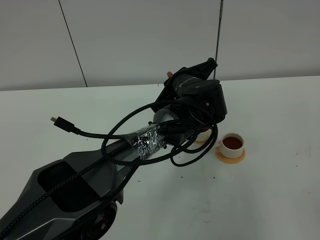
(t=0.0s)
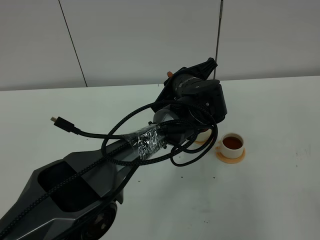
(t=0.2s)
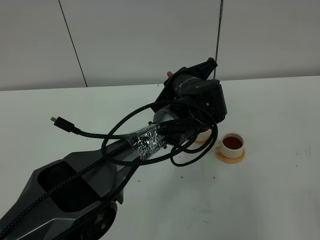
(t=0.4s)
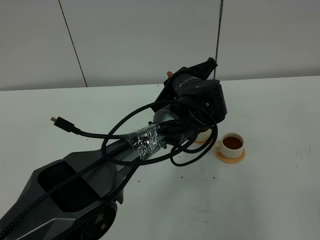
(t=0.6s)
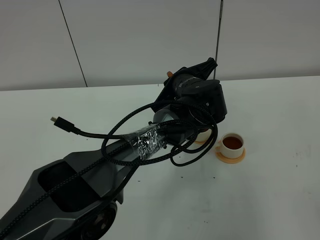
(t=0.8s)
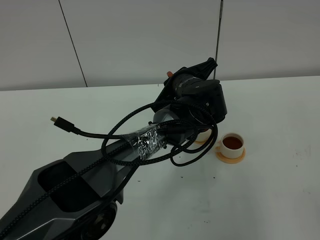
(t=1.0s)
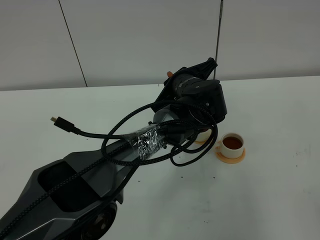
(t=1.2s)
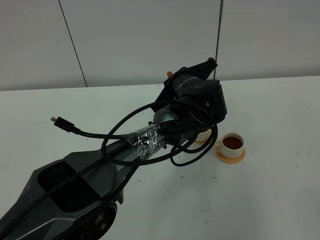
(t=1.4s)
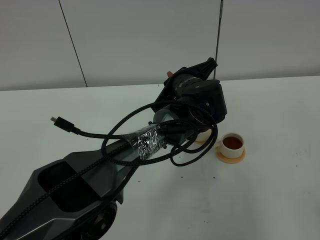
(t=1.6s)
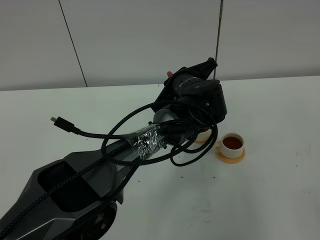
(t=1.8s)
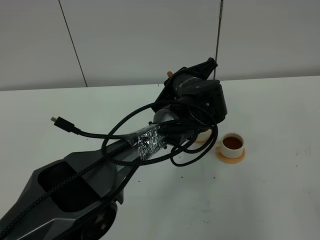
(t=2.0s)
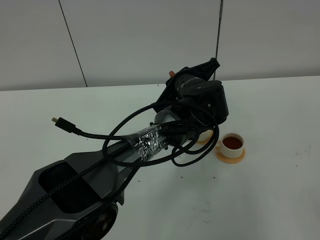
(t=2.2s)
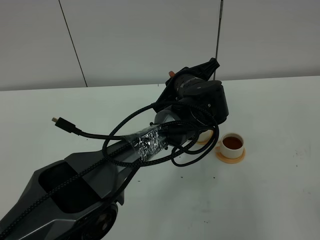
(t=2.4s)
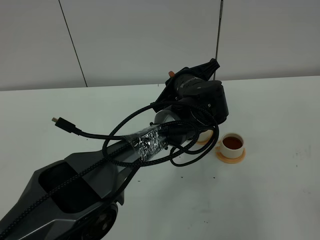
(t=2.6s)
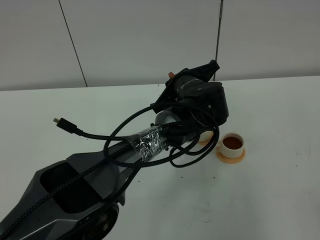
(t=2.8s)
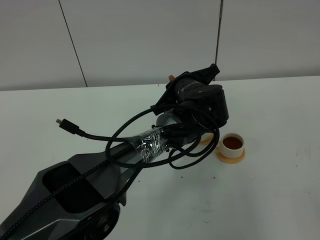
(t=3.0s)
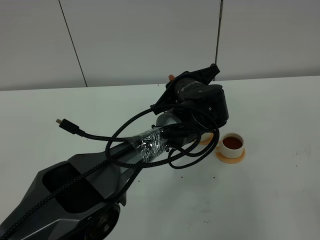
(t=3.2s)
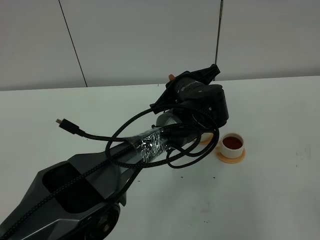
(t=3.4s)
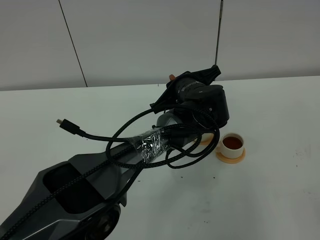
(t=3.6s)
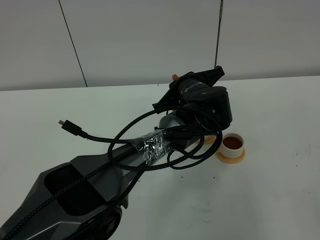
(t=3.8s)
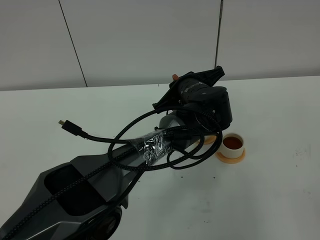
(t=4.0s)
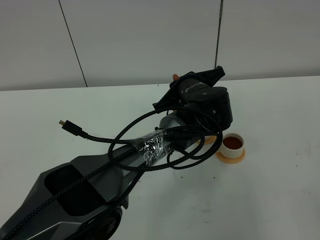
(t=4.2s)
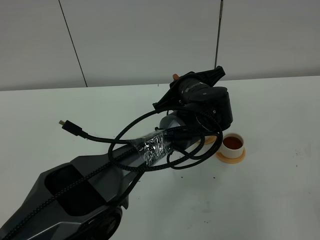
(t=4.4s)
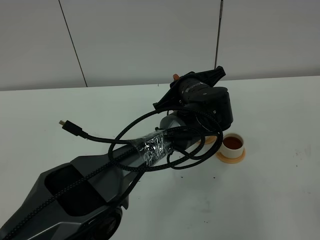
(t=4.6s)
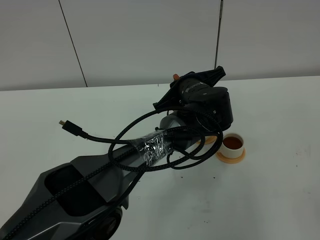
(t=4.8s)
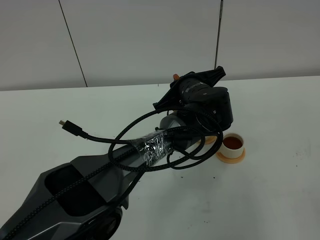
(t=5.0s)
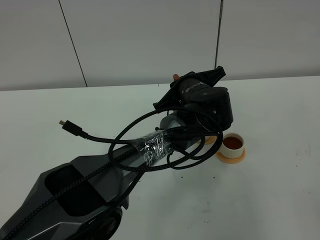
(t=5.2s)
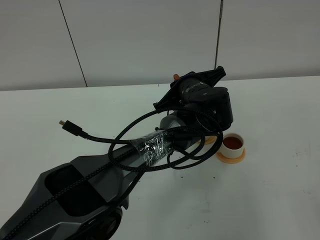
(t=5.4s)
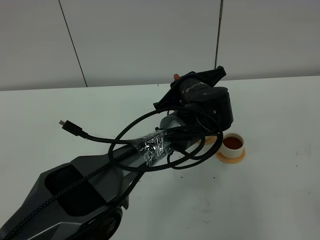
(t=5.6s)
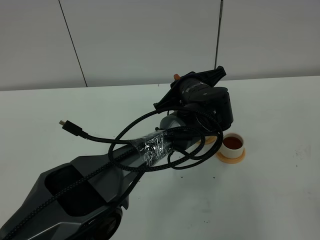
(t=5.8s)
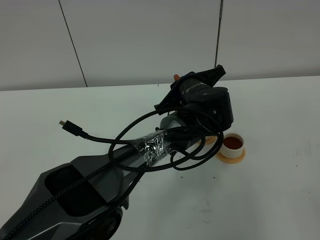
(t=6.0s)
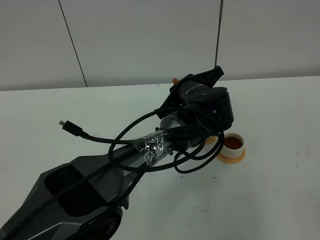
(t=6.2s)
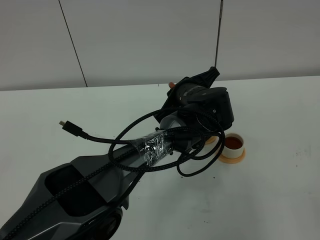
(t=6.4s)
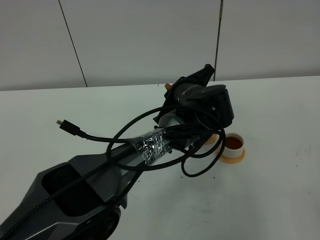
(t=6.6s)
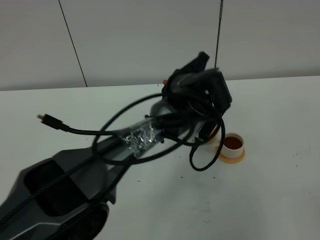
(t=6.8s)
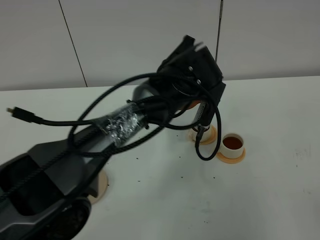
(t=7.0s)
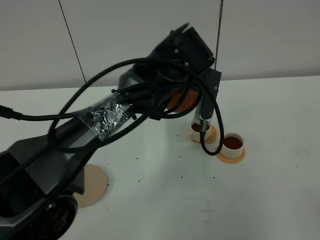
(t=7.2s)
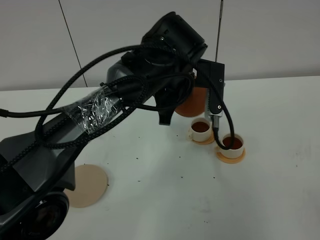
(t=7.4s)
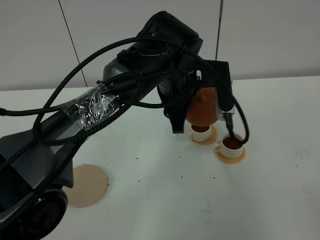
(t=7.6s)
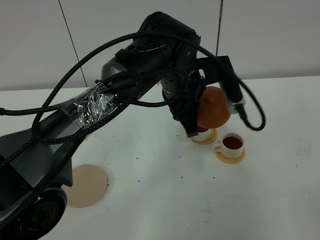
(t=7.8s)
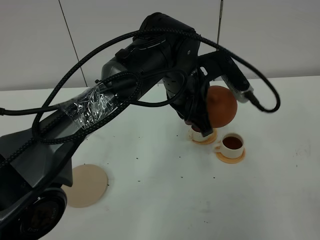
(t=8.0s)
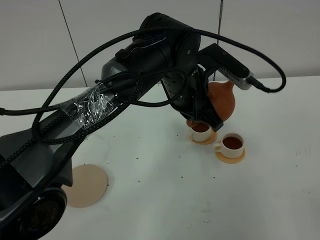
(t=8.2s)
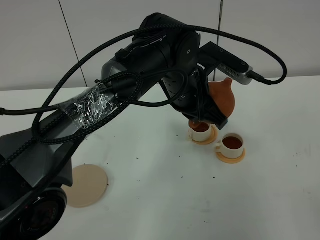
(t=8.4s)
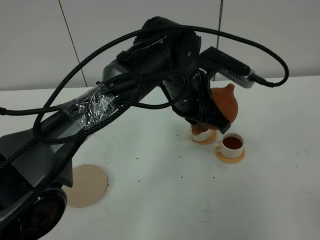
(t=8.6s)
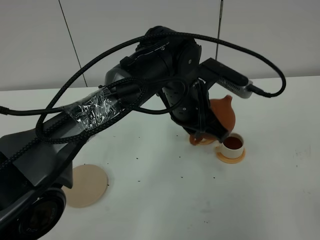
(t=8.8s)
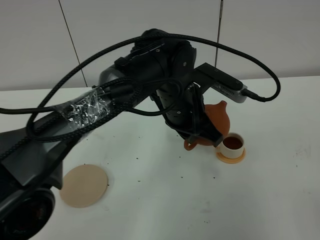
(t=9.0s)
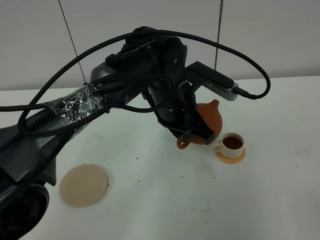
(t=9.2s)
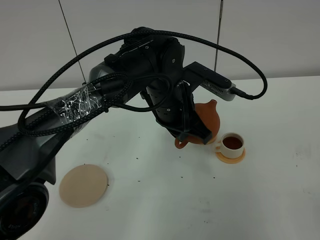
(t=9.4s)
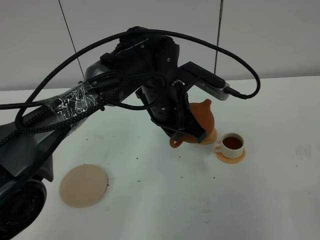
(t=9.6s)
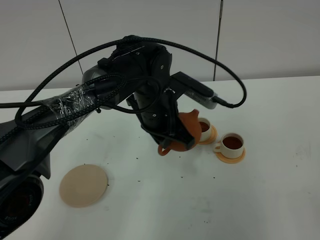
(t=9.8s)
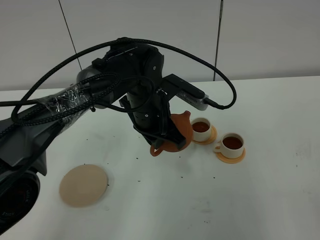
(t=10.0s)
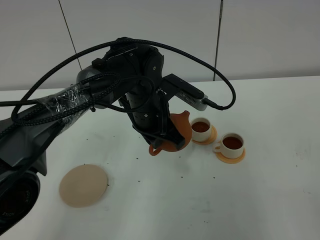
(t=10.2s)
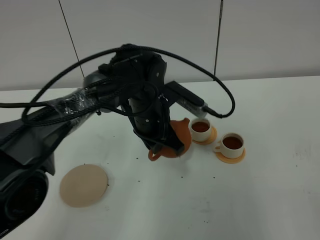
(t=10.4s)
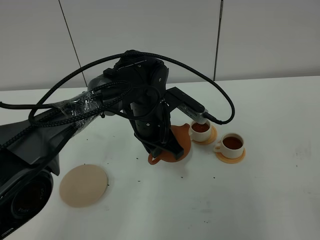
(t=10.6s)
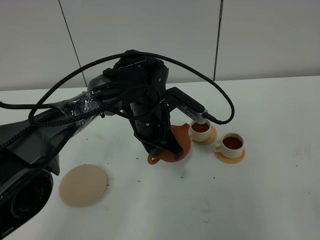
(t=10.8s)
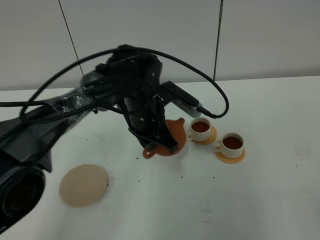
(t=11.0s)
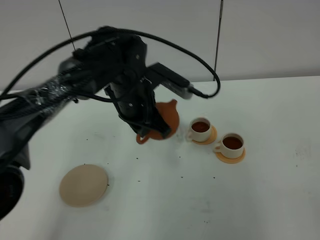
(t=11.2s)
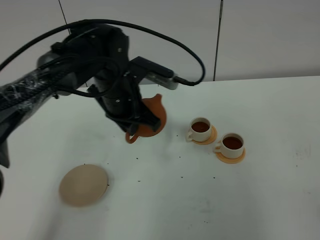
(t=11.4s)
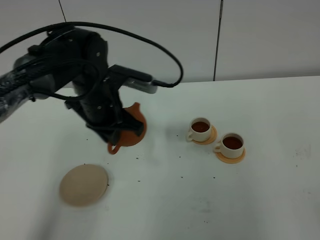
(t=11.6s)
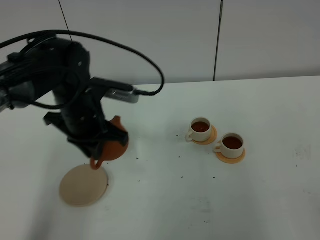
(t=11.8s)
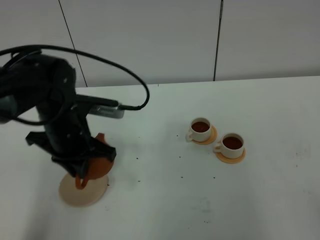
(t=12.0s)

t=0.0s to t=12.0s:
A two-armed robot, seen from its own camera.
Task of the whole recording: grasp the brown teapot and pour the tea into the two white teacups one by one, put the brown teapot back in its original place.
Step, t=0.0s to t=7.4s: Pour tea into the teacup with the left gripper.
t=0.0s to t=3.0s: Neither gripper changes place.
t=3.0s to t=6.0s: Both grippers stay about where they are.
t=6.0s to t=7.6s: The left gripper moves upward, about 10 cm.
t=9.0s to t=10.4s: The left gripper moves to the left and downward, roughly 10 cm.
t=10.4s to t=12.0s: The left gripper is displaced to the left and backward by approximately 15 cm.

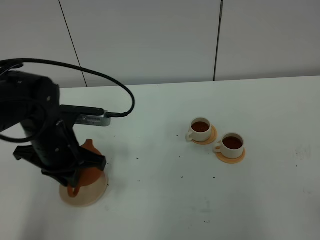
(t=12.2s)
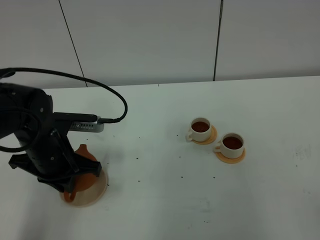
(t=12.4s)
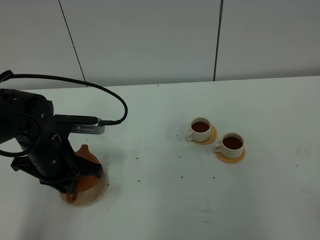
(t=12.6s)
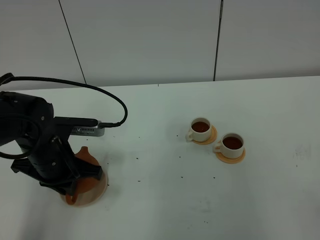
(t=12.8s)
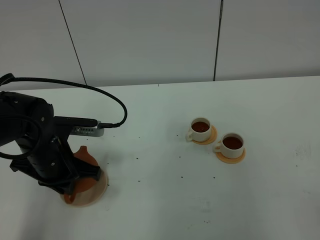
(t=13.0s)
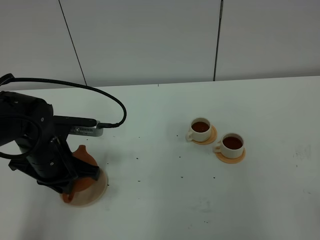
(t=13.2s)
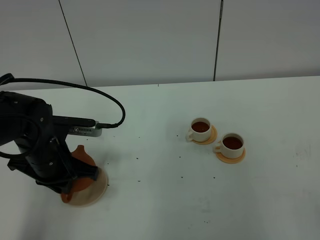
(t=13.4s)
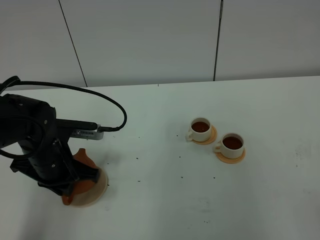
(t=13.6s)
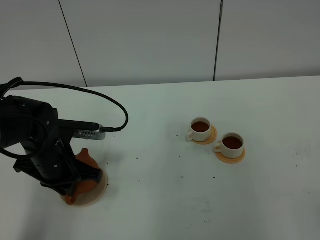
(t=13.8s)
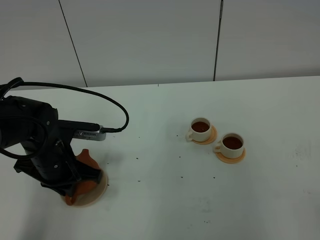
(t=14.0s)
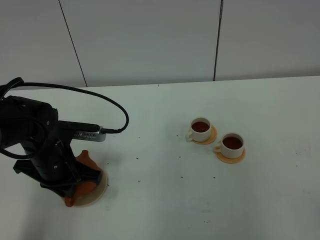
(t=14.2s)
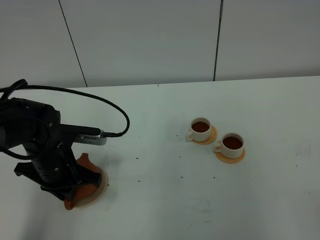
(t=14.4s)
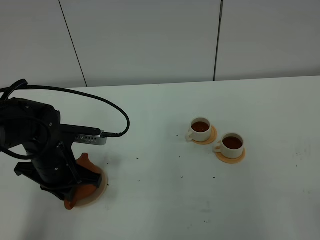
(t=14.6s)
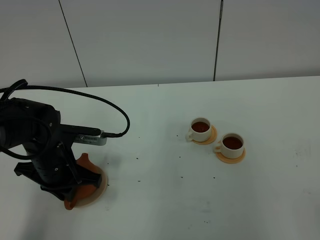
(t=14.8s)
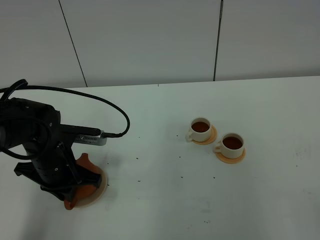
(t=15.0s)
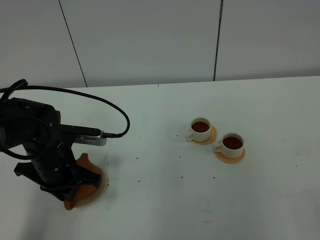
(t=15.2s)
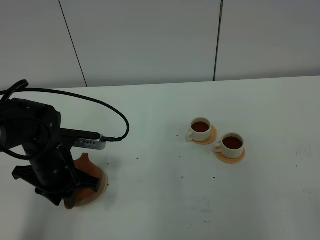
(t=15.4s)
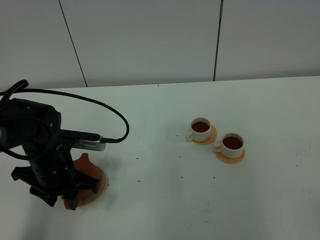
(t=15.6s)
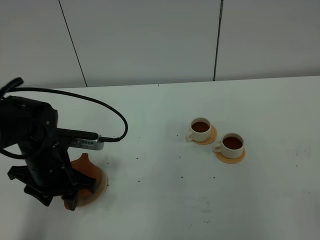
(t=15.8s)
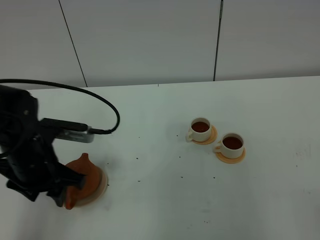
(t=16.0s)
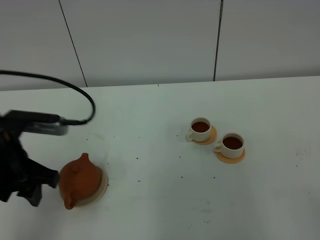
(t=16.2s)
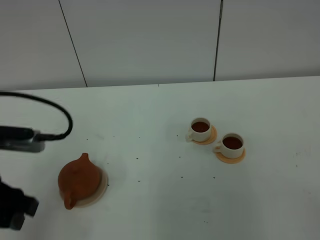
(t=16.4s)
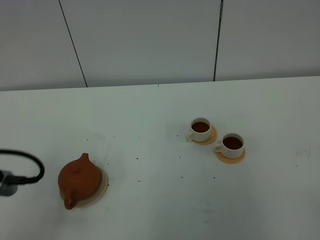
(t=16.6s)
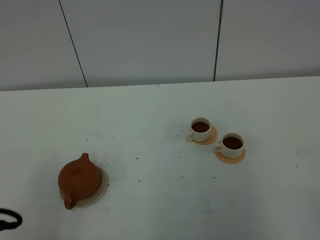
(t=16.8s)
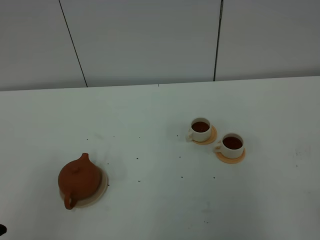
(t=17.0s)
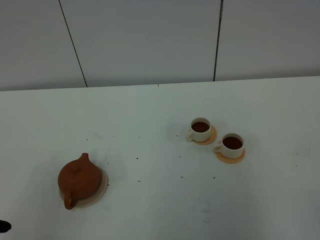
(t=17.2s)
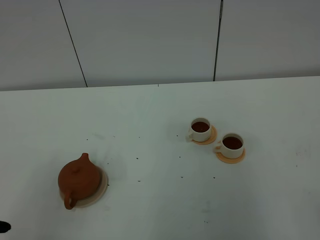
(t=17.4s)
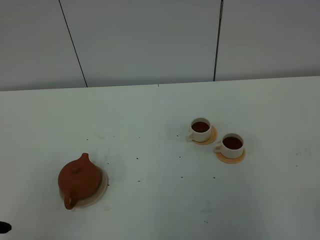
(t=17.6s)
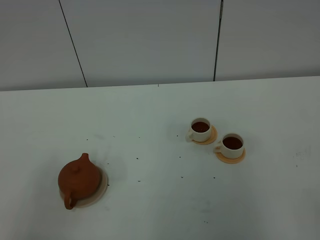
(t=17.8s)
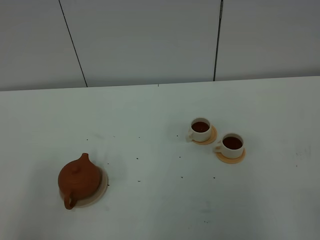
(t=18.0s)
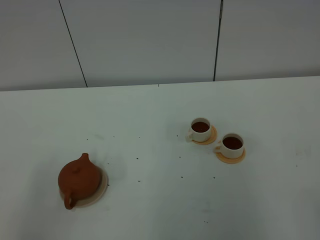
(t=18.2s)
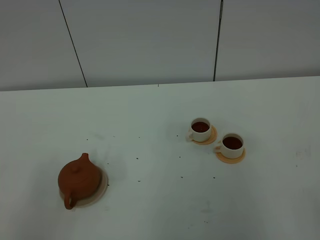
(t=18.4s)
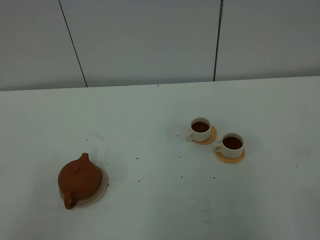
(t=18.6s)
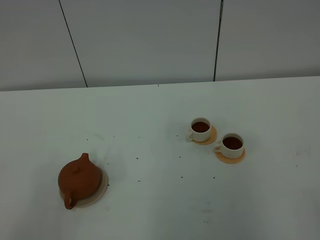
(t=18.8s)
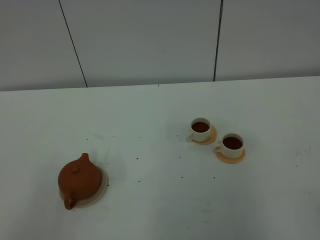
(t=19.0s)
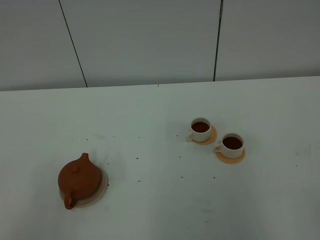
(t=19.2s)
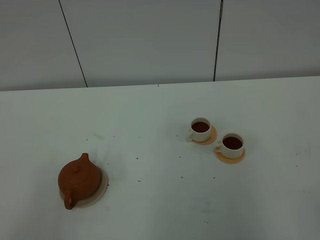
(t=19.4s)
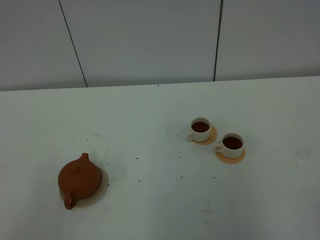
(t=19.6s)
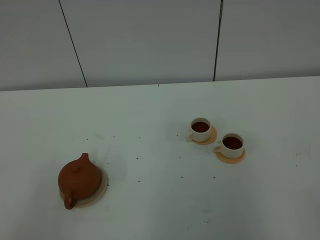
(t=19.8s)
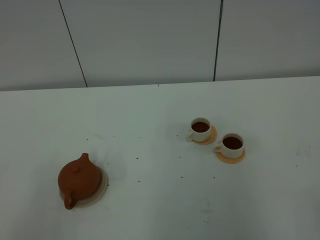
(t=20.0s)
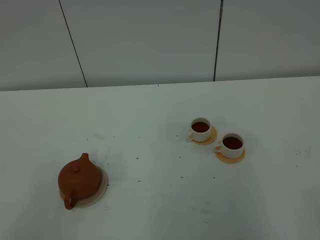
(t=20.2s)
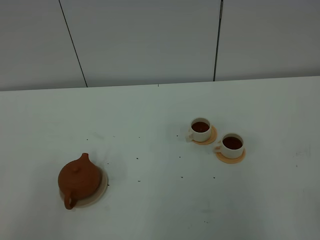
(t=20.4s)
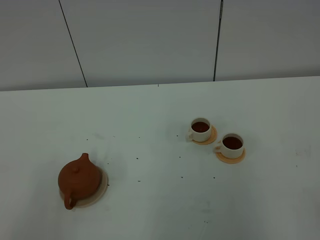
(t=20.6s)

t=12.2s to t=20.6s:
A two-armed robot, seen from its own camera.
Task of the whole recording: grasp the brown teapot and pour the tea into the two white teacups one by one, put the brown teapot back in its original place.
t=12.2s to t=13.6s: The grippers stay close to where they were, moving slightly.
t=13.6s to t=15.0s: Neither gripper changes place.
t=15.0s to t=16.4s: The left gripper moves backward and upward, about 20 cm, and opens up.
t=16.4s to t=17.8s: The left gripper shifts some 10 cm backward.
t=19.2s to t=20.6s: Neither gripper changes place.

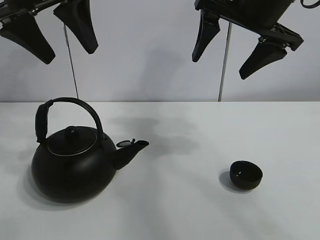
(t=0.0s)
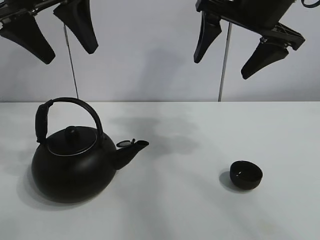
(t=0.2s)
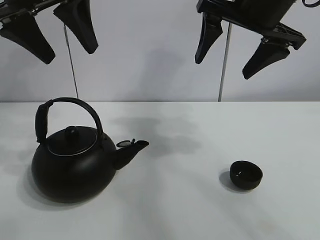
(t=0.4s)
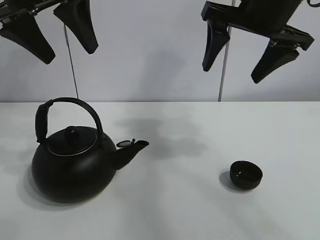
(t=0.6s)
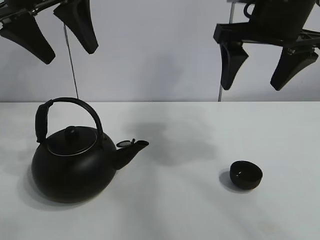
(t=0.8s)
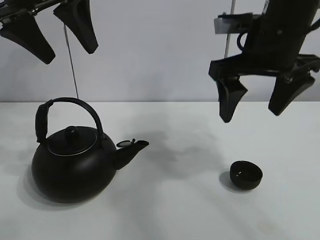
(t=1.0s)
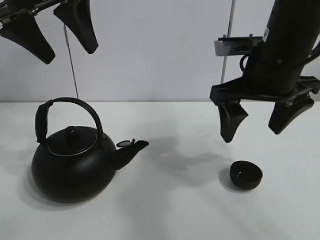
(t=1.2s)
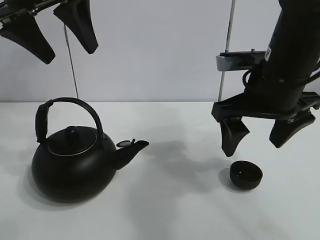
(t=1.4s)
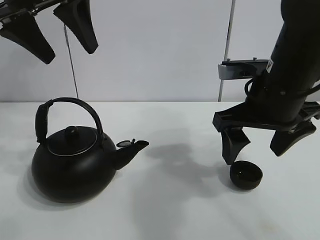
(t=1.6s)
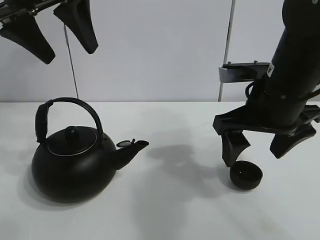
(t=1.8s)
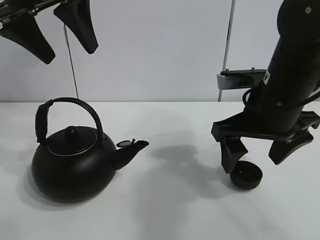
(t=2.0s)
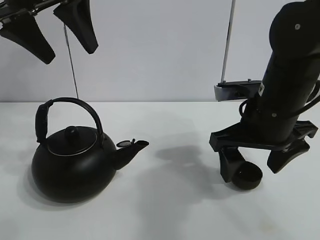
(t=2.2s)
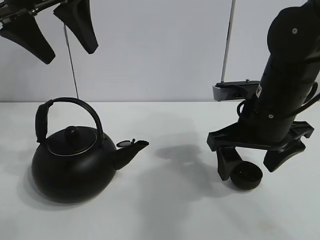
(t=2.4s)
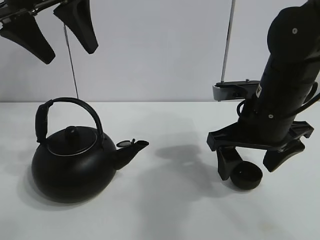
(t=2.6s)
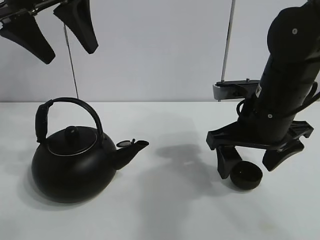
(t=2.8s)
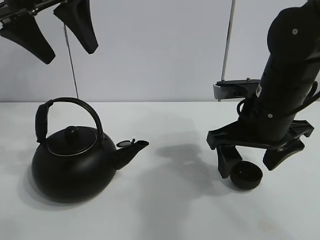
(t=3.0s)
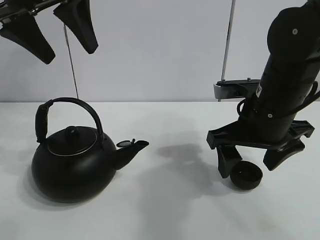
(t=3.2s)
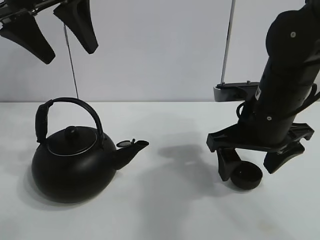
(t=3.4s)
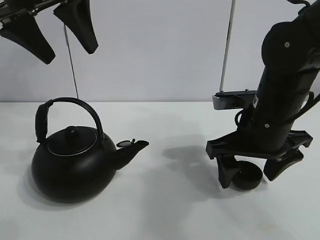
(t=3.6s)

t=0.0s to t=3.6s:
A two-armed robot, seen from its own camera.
Task of the whole recording: pour tea into the teacup.
t=1.8s to t=3.6s: The grippers stay close to where they were, moving slightly.